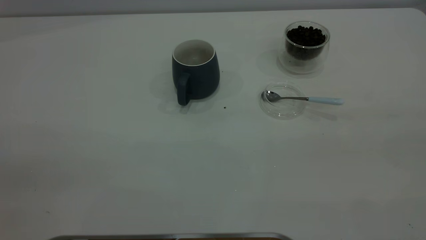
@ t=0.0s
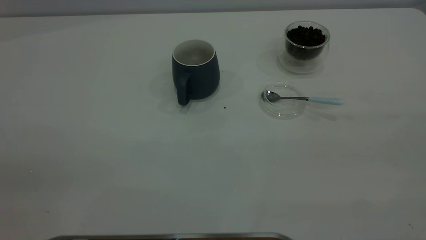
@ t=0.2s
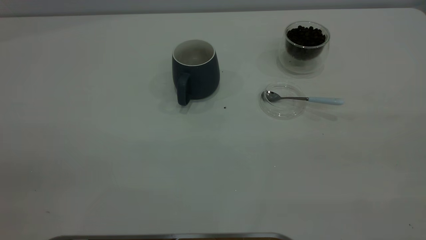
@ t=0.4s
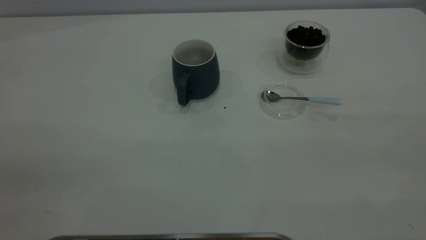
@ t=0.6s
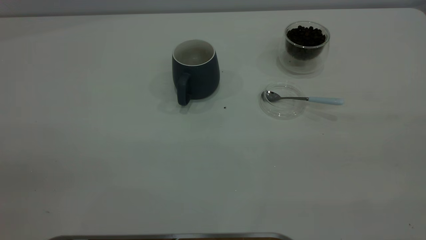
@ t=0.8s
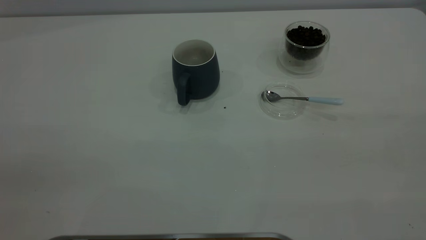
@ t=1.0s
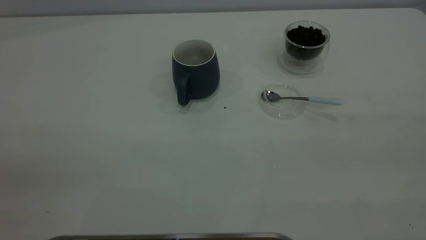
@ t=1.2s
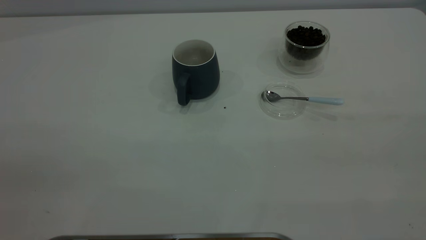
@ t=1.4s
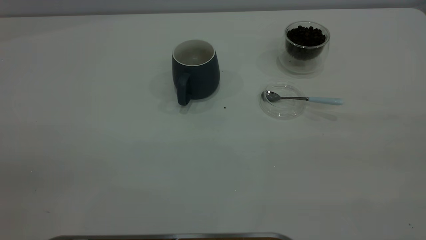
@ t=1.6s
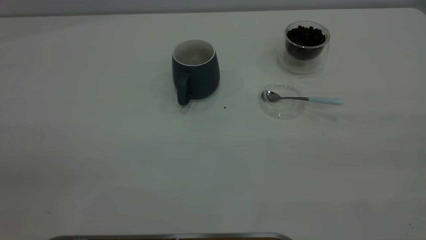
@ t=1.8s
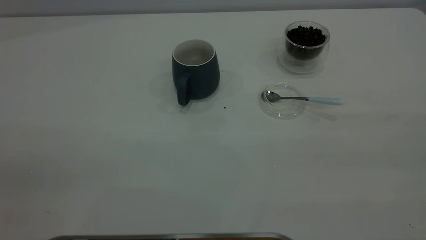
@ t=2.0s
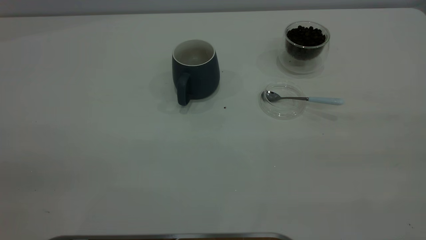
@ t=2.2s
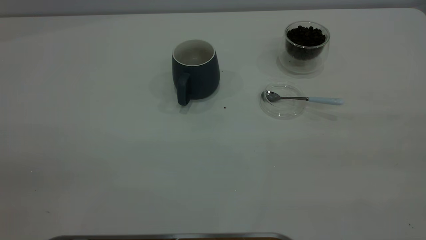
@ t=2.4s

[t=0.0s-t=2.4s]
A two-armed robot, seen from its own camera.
Task of the whole recording: the left gripper place the grey cup in the center of the table, the right gripper take the blue spoon from the cup lid and scoop out the coffee beans from the coffee cup and put them into the grey cup, the right gripper put the spoon back into the cup lid.
t=0.0s to t=1.2s: Both grippers stay about where they are.
t=1.2s to t=2.4s: The two grippers keep their place.
